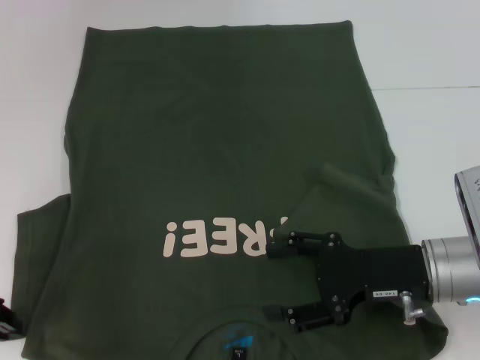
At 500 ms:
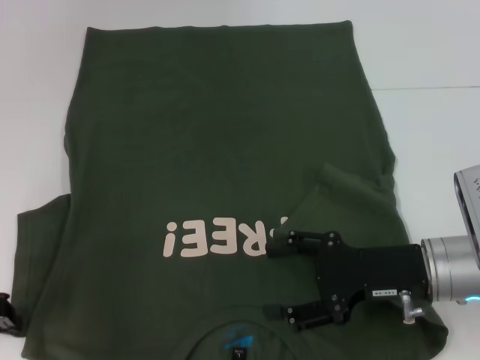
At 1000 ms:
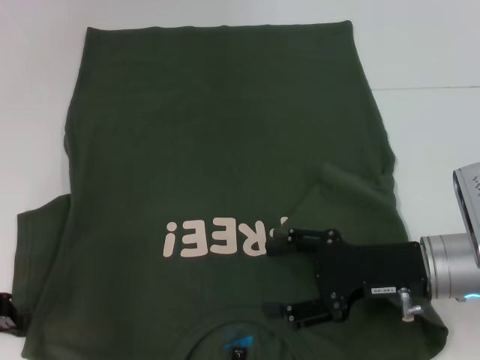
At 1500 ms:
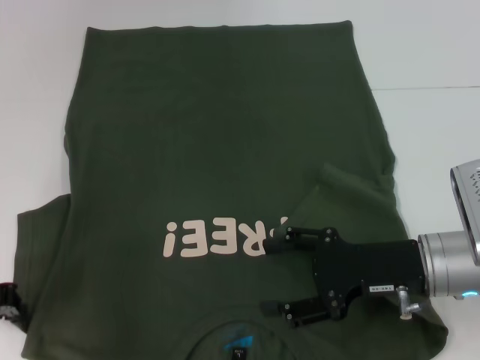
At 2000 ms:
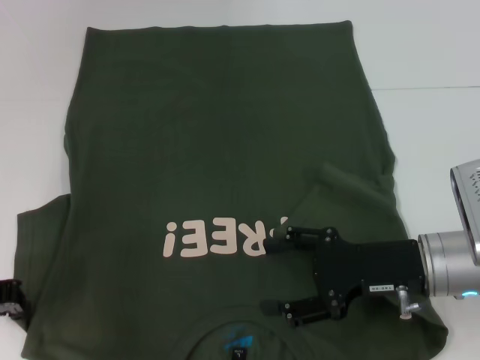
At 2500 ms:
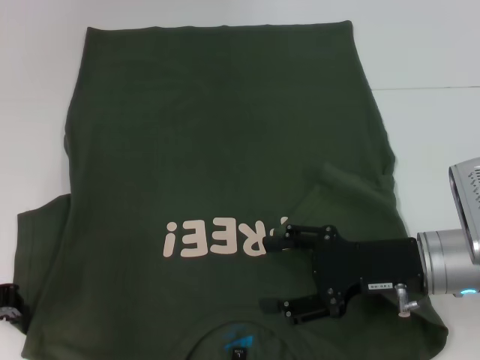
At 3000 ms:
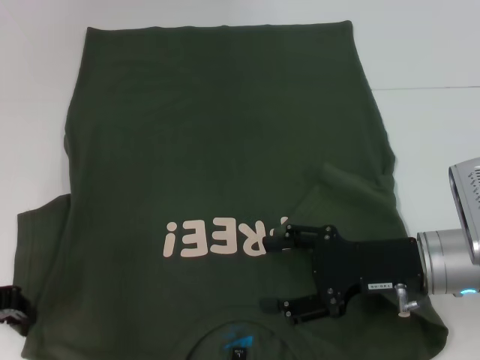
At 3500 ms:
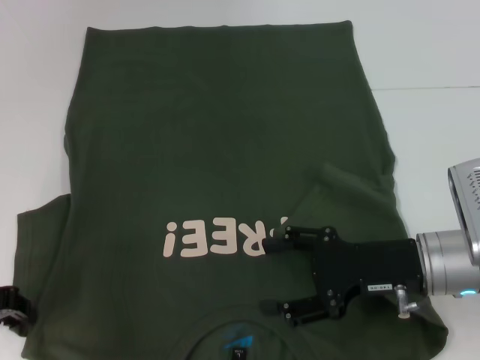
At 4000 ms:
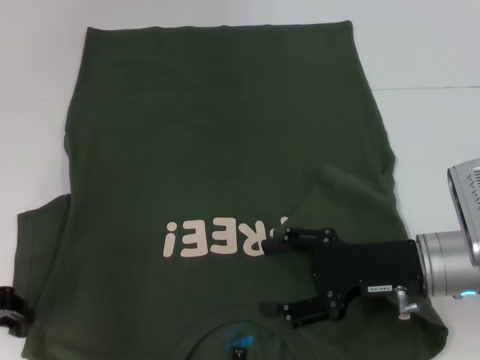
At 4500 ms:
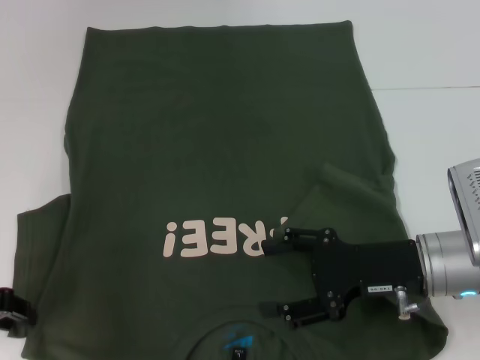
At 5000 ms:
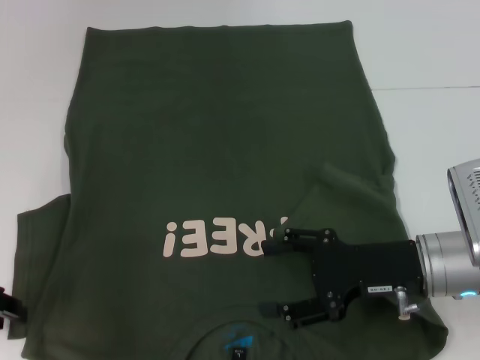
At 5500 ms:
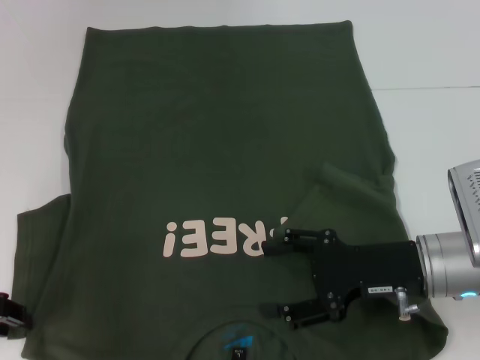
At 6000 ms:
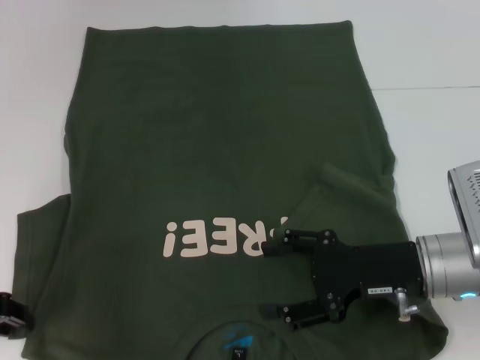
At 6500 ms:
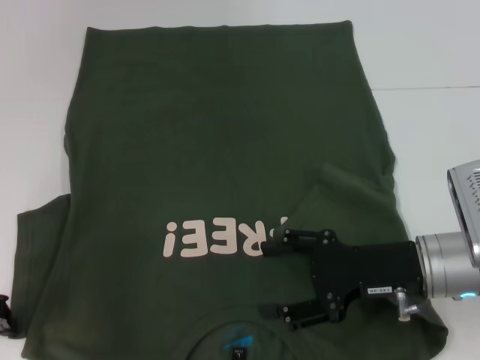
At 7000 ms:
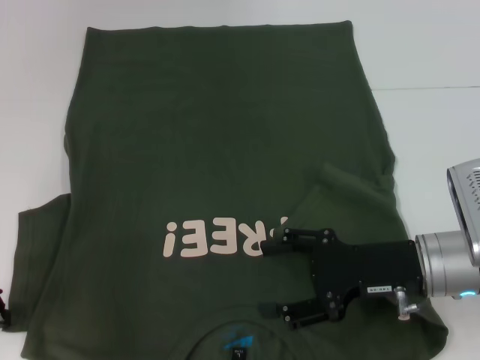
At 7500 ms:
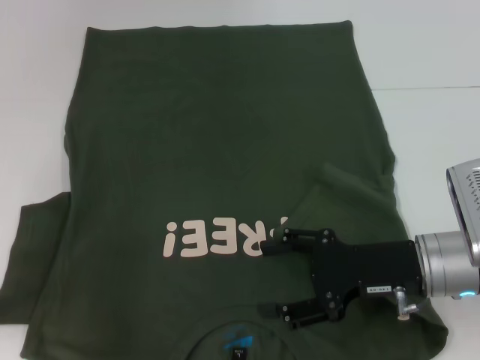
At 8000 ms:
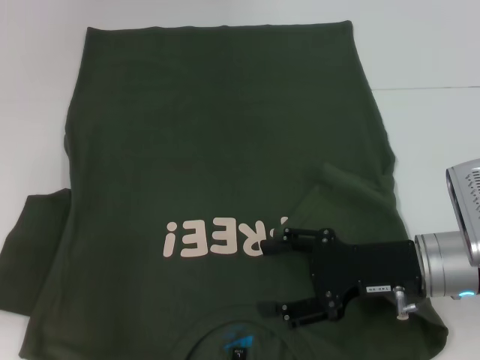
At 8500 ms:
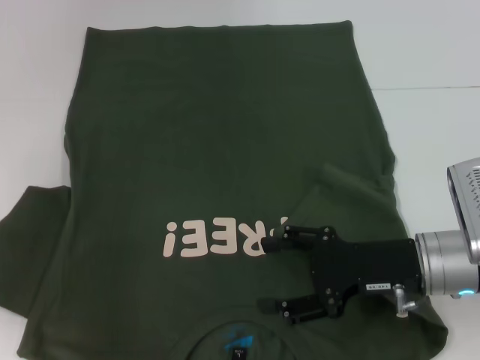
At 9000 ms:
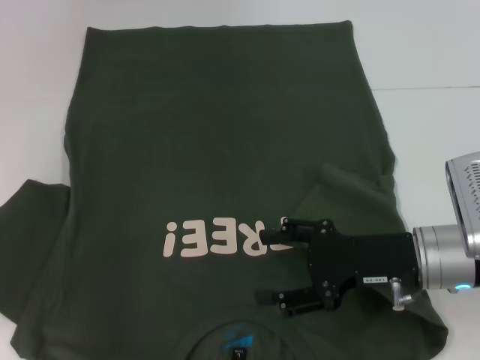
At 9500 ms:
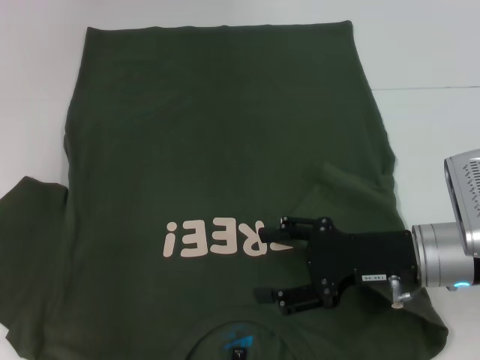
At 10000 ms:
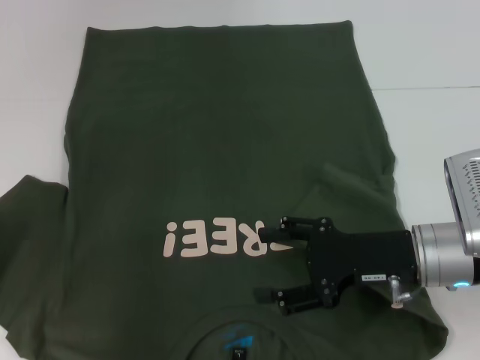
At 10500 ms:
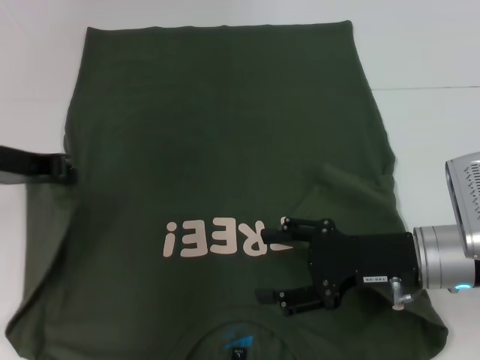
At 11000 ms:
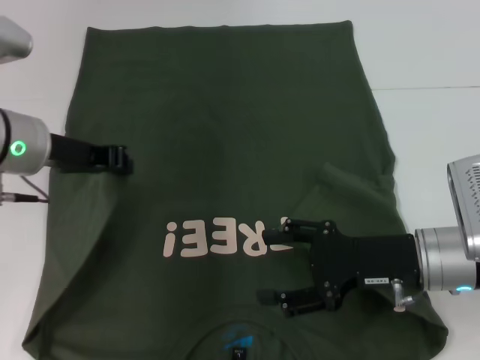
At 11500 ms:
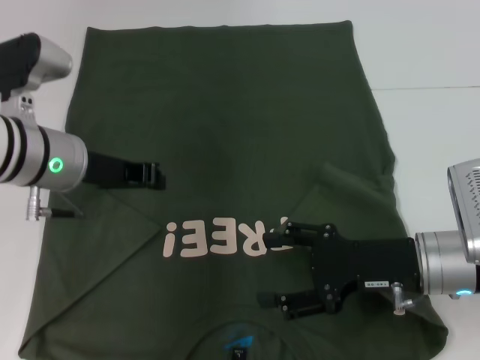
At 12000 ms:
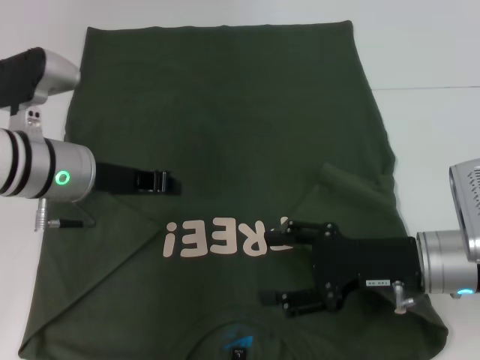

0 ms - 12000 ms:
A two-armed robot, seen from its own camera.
0 ms - 2000 ms: There are only small adjustments of the grippers.
2000 ms - 4000 ms: Both grippers stay put.
4000 ms - 6000 ms: The two grippers keep their place.
6000 ms - 8000 ms: The left gripper closes its fingers.
8000 ms - 10000 ms: The left gripper moves about 5 cm.
10000 ms - 12000 ms: The left gripper goes roughly 15 cm to the right.

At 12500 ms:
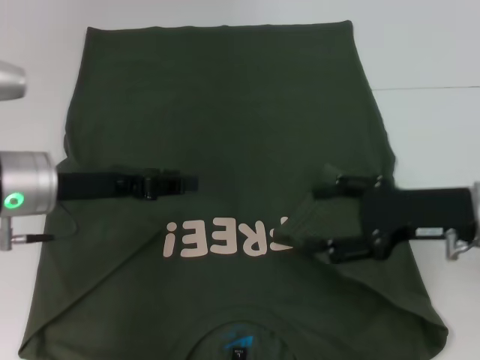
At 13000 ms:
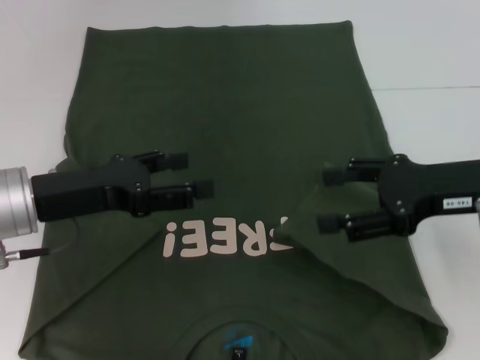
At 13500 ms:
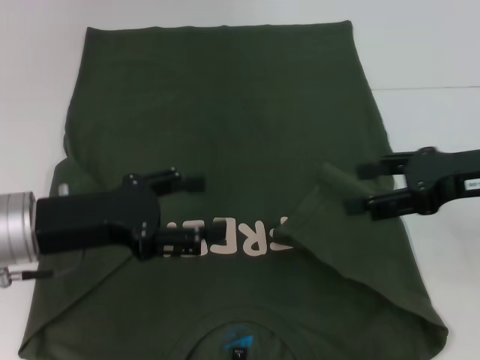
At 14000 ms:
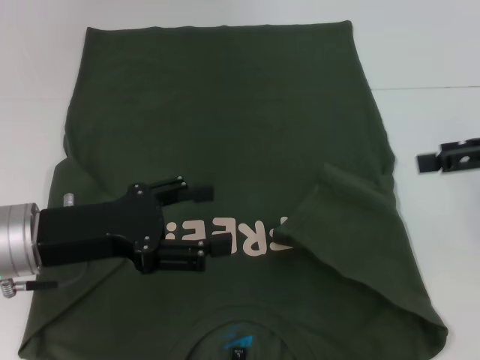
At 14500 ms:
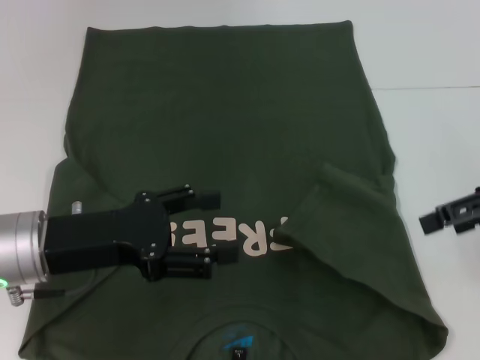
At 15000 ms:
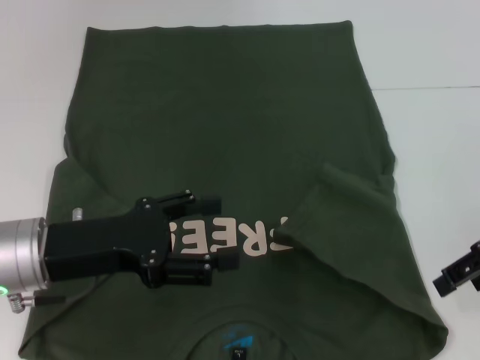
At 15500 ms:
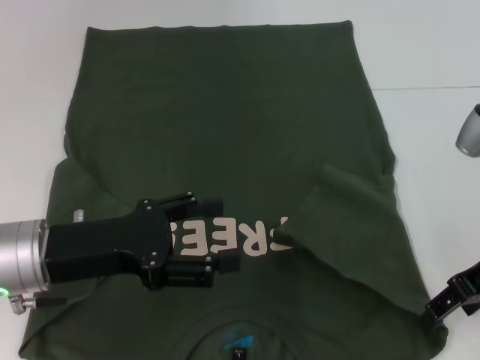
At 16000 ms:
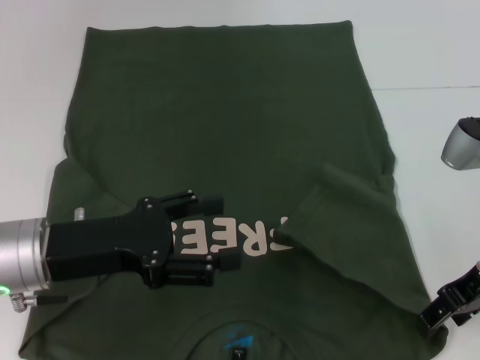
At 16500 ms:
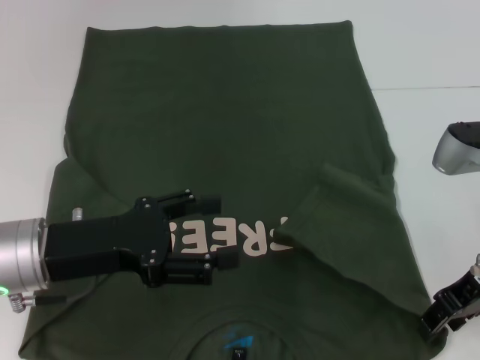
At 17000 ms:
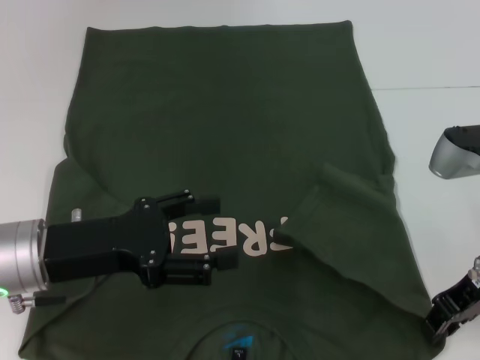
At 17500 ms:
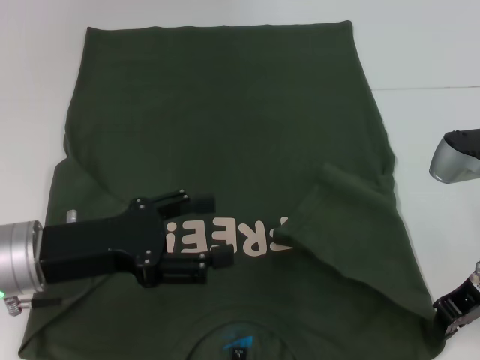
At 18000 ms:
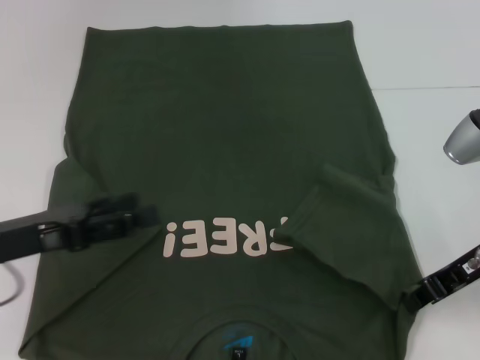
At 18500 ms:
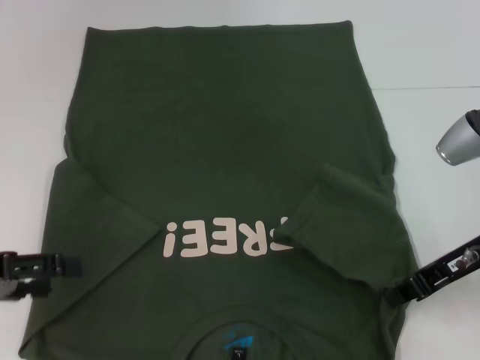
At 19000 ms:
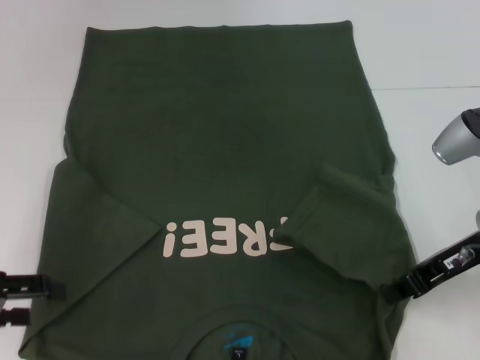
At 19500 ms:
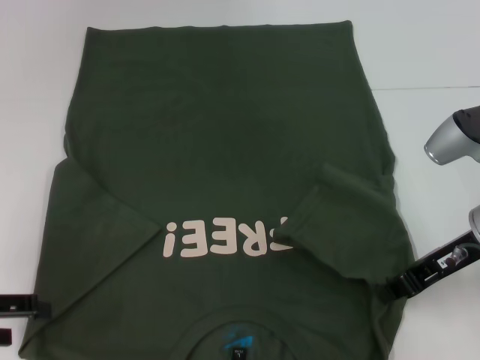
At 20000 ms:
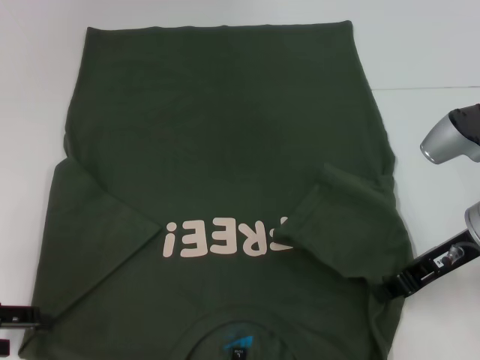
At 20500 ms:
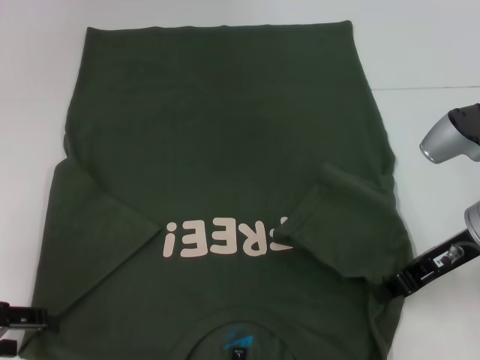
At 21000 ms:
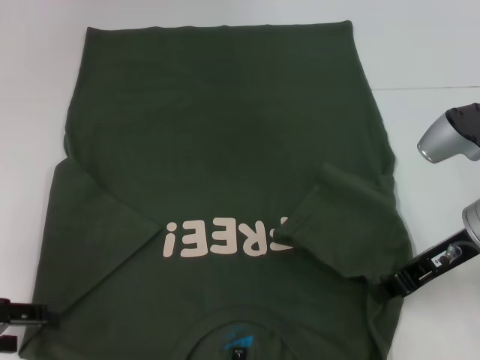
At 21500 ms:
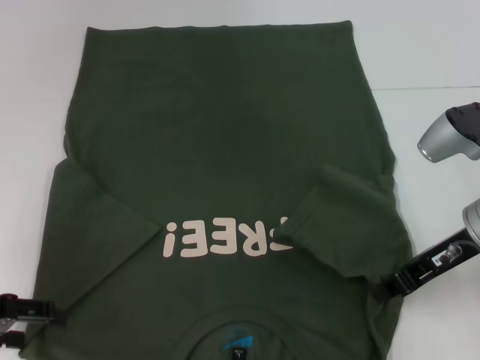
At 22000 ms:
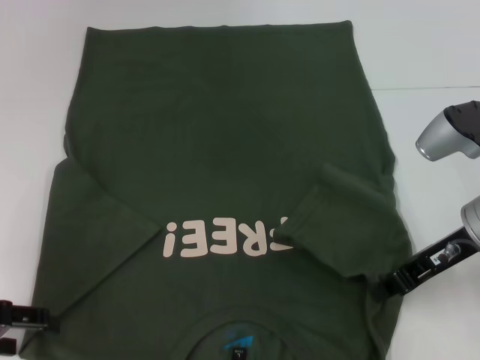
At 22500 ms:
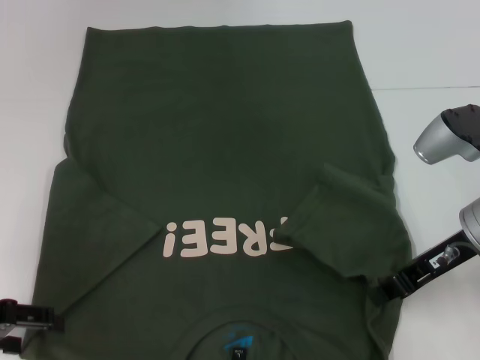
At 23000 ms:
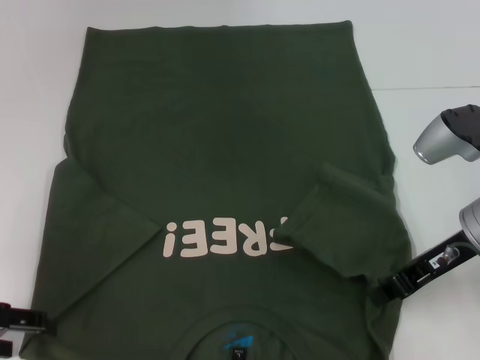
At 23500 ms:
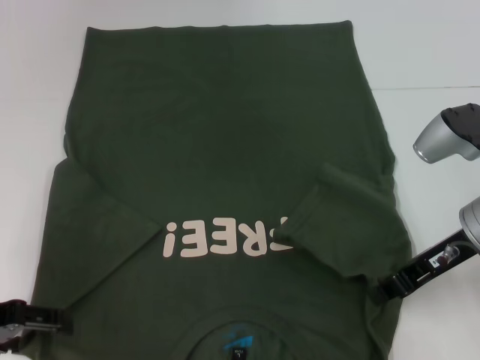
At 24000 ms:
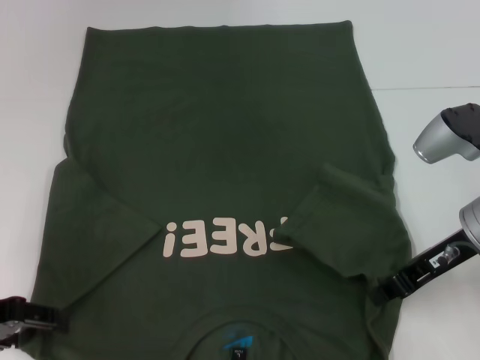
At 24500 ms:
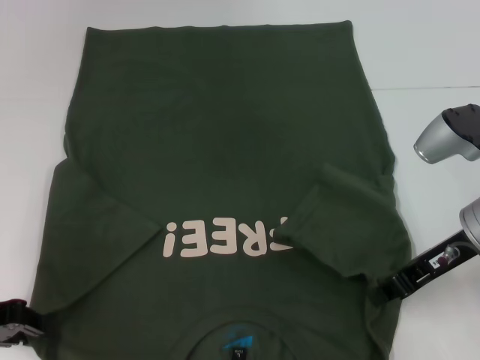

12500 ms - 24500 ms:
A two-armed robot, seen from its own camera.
Step, 14000 ms - 20500 ms: Grab the bottom right corner with your right hand.
12500 ms - 14500 ms: The left gripper travels backward by about 5 cm, and opens; the right gripper travels upward and to the right by some 10 cm.
14500 ms - 16500 ms: The right gripper shifts approximately 10 cm downward and to the left.
16500 ms - 18500 ms: The right gripper closes. Meanwhile the left gripper travels to the left by approximately 10 cm.
18500 ms - 20500 ms: There are only small adjustments of the grippers.
20500 ms - 22500 ms: Both grippers stay put.
22500 ms - 24500 ms: The left gripper closes.

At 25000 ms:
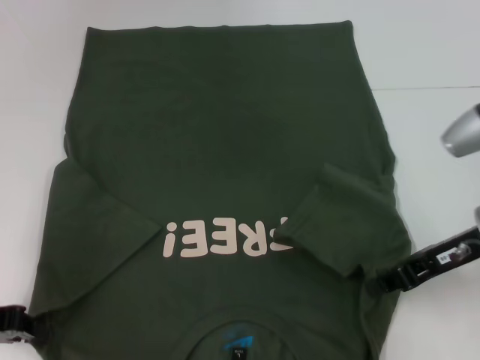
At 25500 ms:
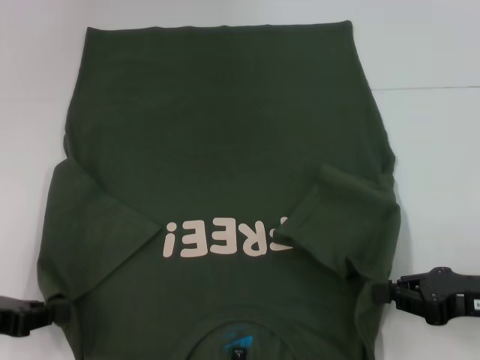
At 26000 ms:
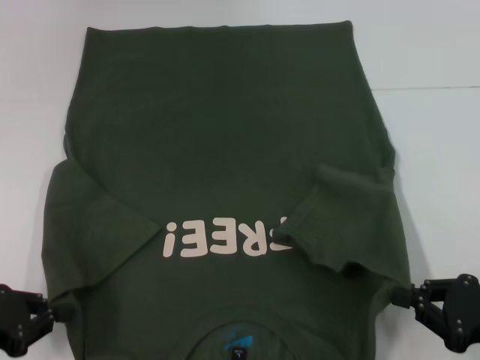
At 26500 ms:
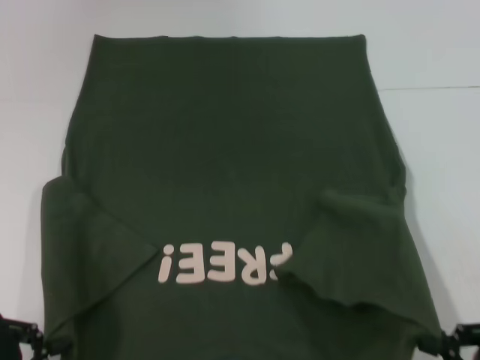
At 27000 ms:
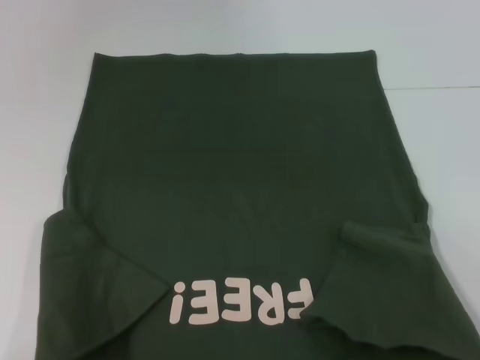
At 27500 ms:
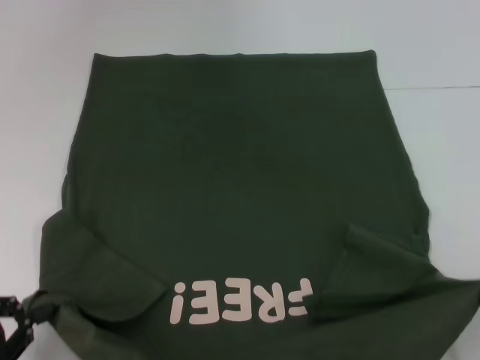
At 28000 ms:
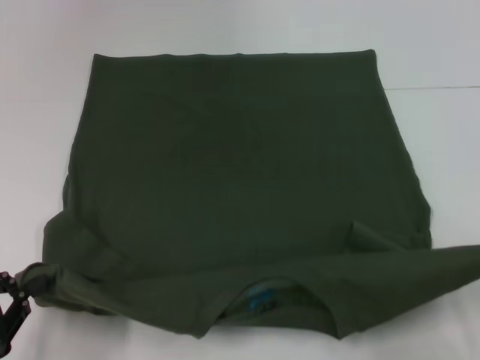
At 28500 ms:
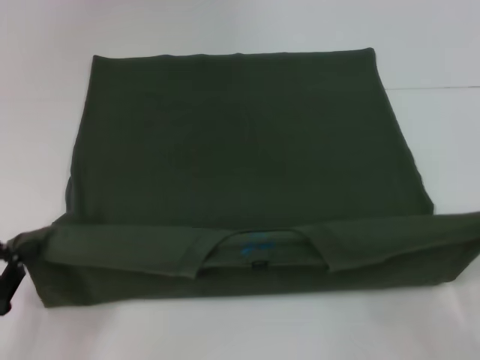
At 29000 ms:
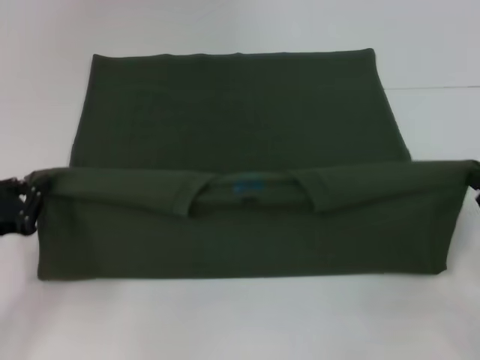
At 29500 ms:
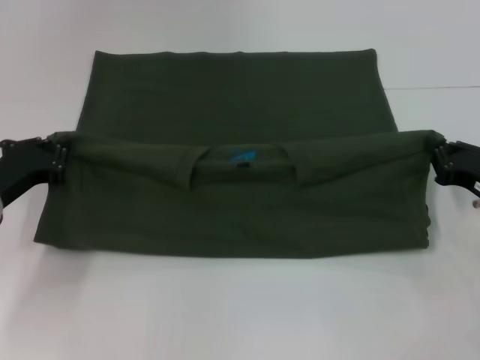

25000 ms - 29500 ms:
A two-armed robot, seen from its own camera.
25000 ms - 27000 ms: The right gripper is displaced backward by some 25 cm, while the left gripper moves backward, approximately 15 cm.
27000 ms - 29500 ms: Both grippers move forward, roughly 25 cm.
